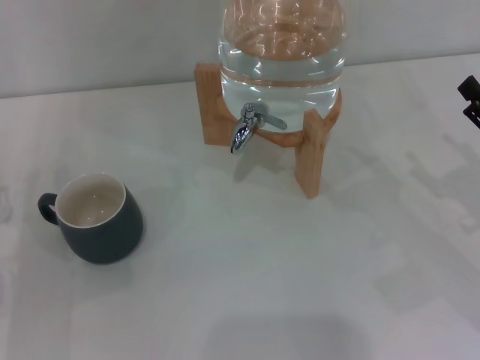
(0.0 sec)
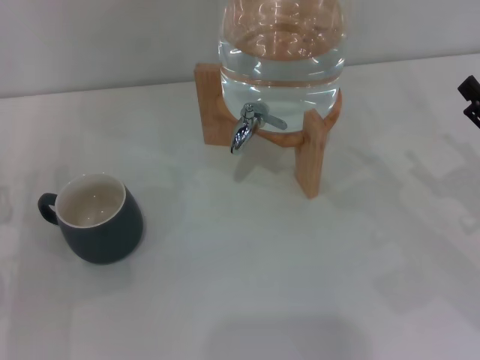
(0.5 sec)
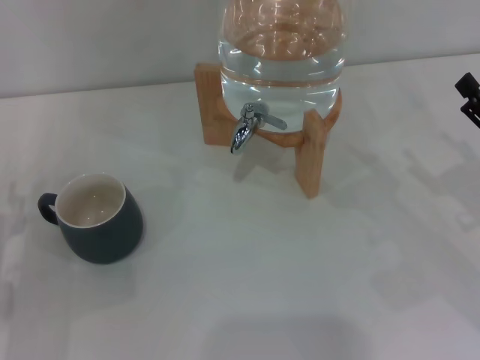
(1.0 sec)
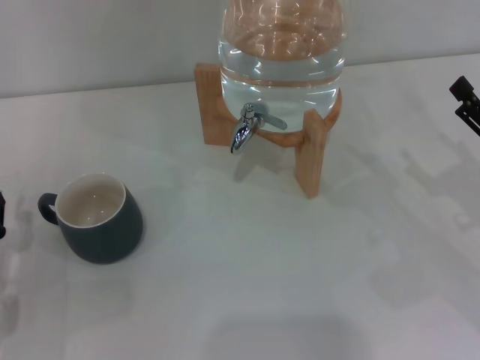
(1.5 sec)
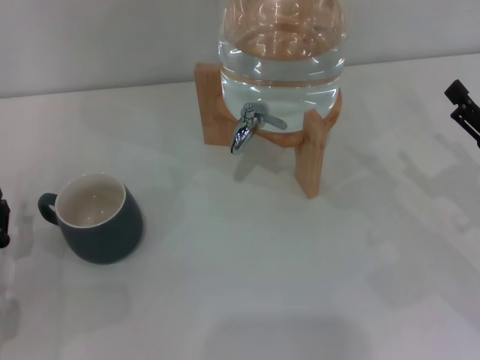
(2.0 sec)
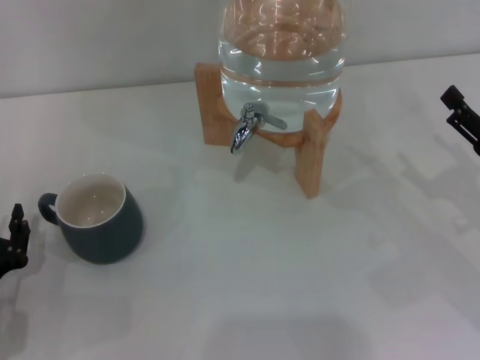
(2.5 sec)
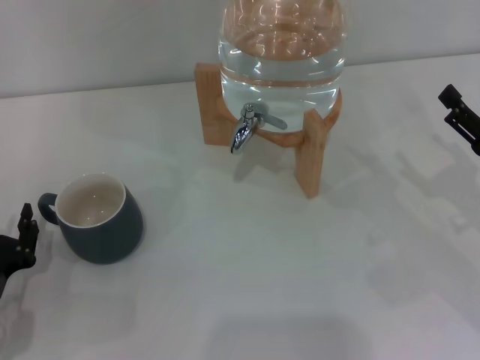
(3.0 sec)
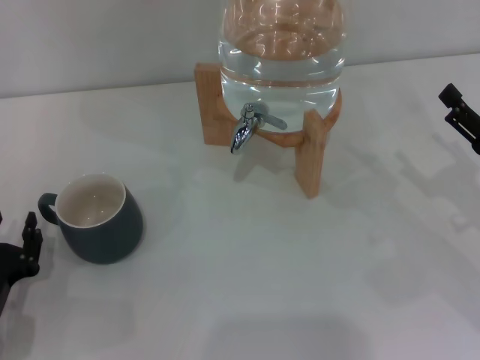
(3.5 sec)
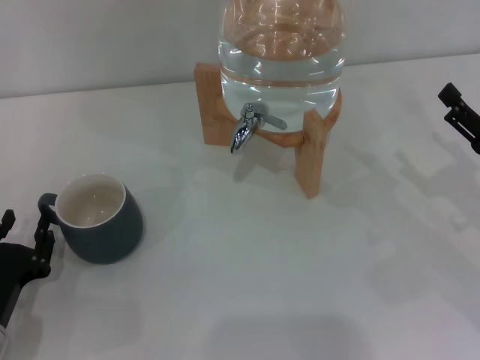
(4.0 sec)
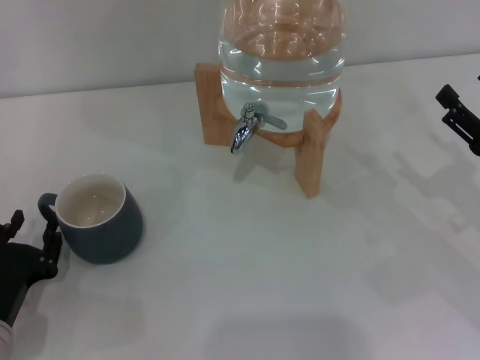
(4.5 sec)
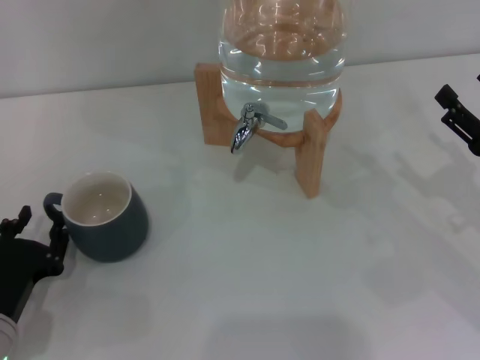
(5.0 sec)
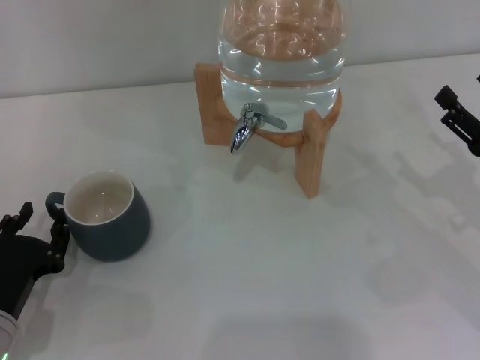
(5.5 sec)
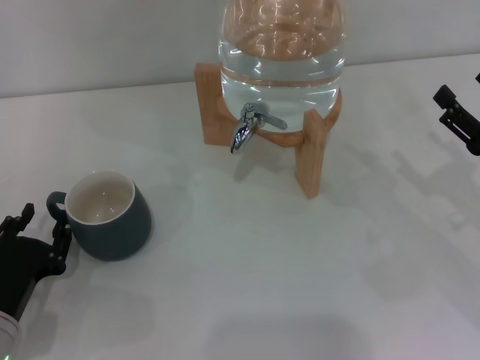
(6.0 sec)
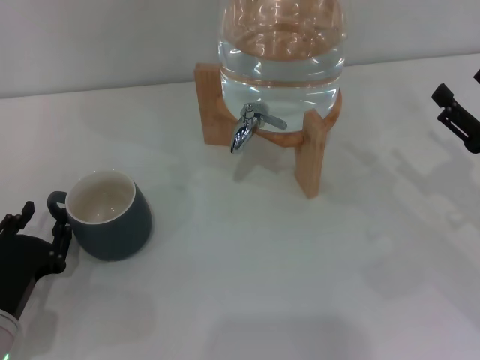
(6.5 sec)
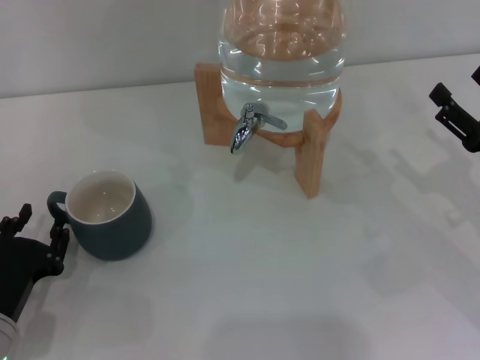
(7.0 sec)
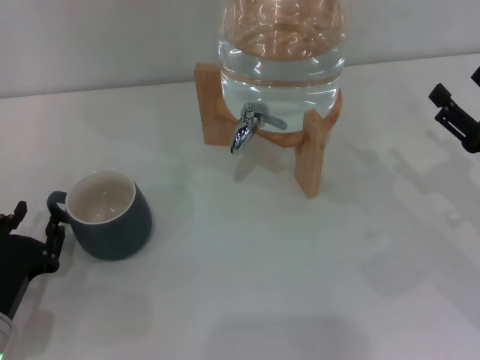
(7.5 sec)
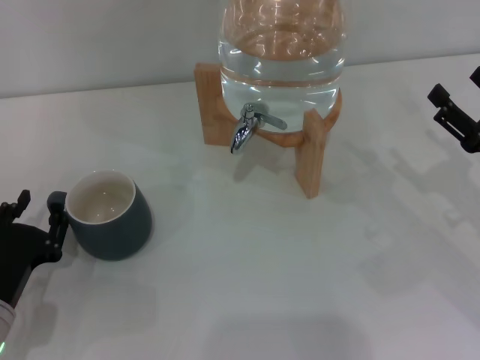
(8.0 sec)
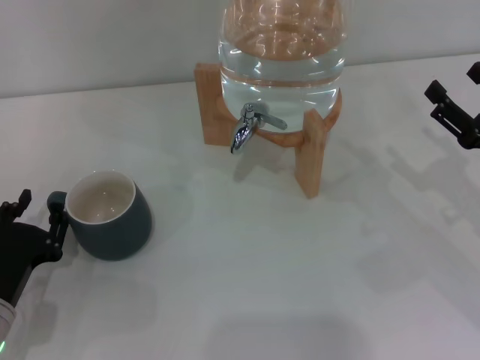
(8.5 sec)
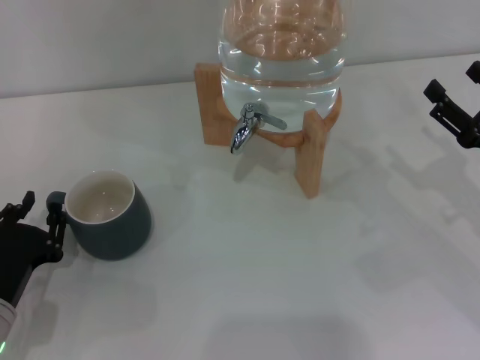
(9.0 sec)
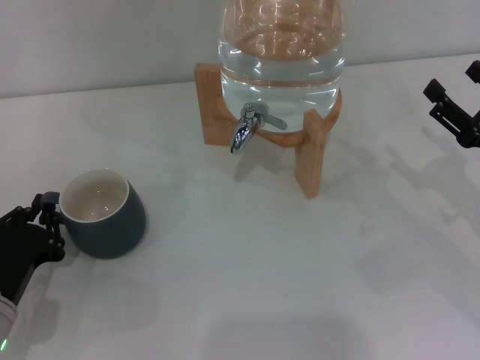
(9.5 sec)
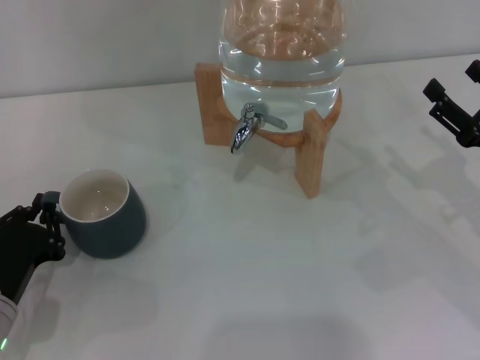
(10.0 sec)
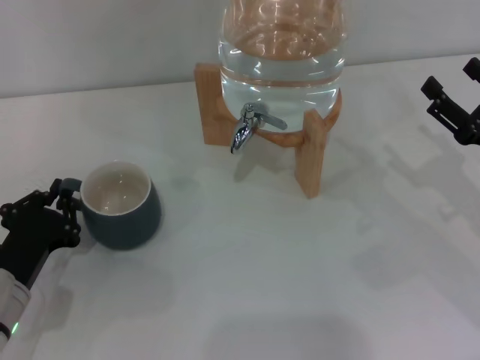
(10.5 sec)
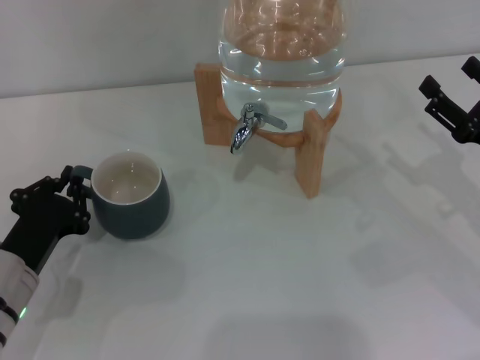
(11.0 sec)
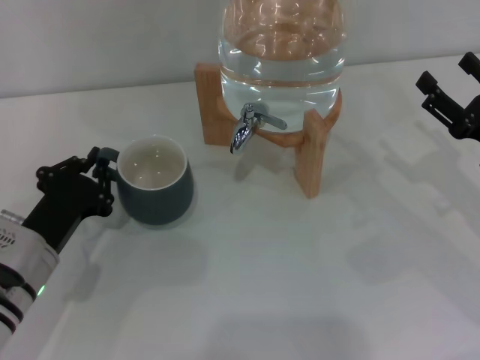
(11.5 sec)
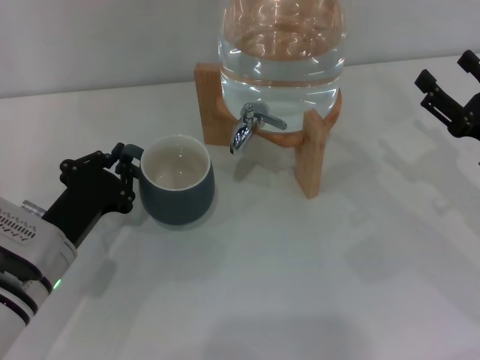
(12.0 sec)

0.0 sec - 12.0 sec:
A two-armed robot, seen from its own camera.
Task of the whole recording: the left gripper pick up the black cup and place it horizontally under the faucet, the right gripper turn on the faucet to fill the cup, and then turn off the faucet.
0.0 sec - 2.0 sec: There are only small adjustments of the grippers.
2.0 sec - 6.0 sec: The grippers make only small movements.
6.0 sec - 8.0 sec: Neither gripper changes place.
8.0 sec - 10.0 sec: The left gripper closes its fingers.
10.0 sec - 12.0 sec: The left gripper travels to the right by some 5 cm.

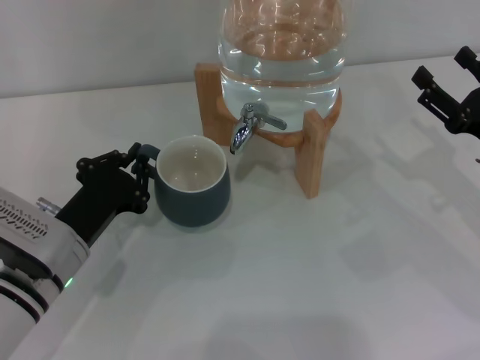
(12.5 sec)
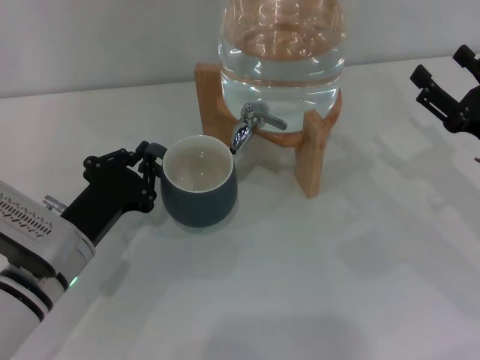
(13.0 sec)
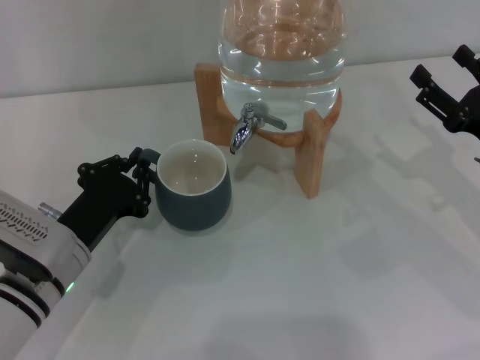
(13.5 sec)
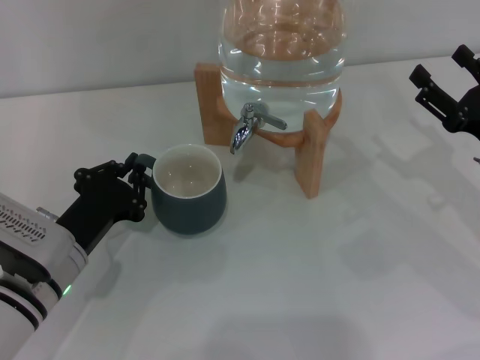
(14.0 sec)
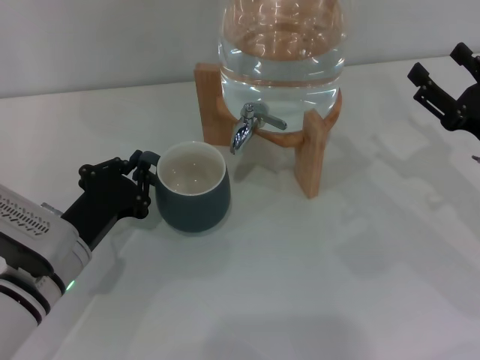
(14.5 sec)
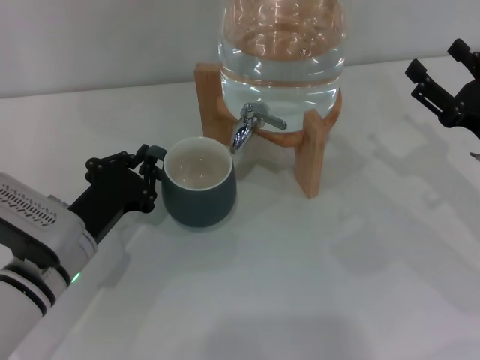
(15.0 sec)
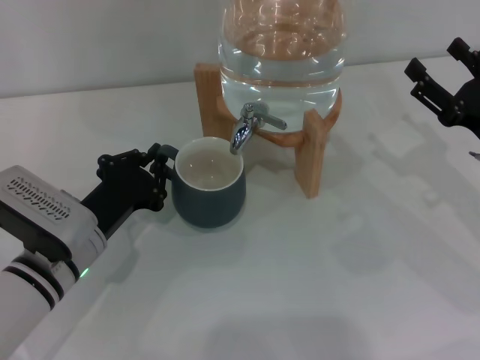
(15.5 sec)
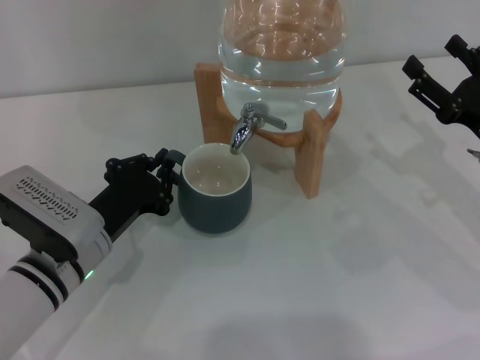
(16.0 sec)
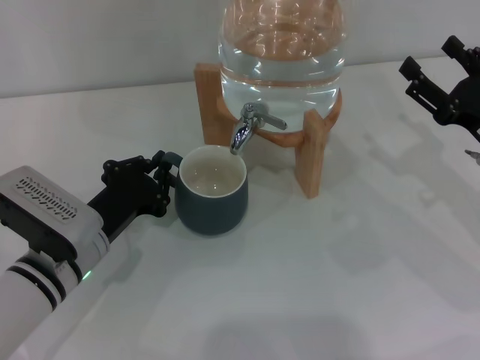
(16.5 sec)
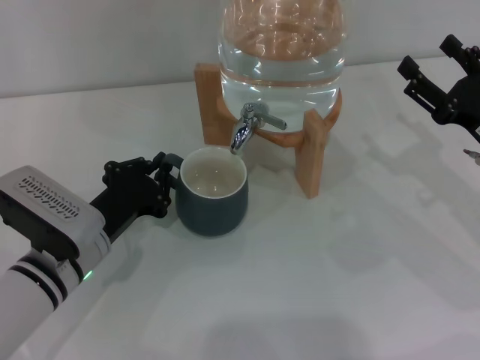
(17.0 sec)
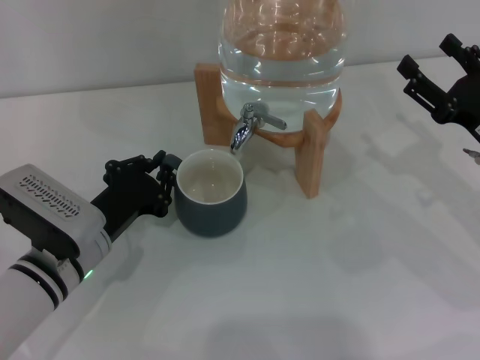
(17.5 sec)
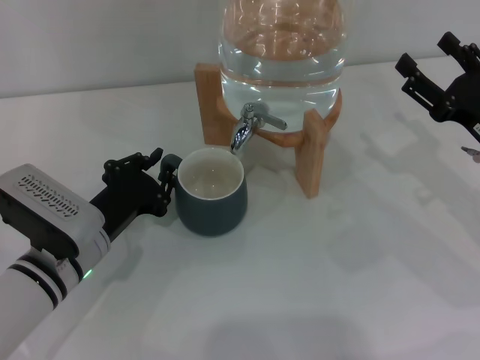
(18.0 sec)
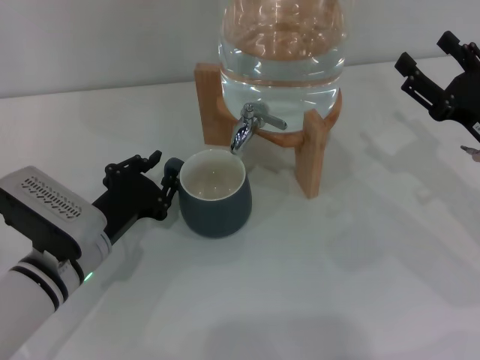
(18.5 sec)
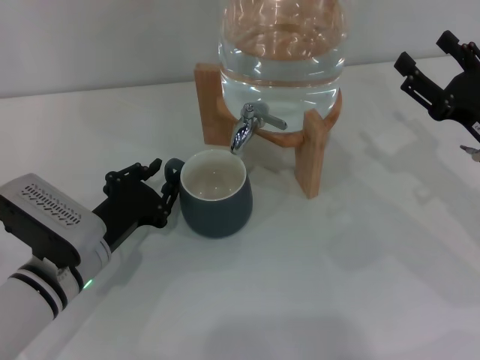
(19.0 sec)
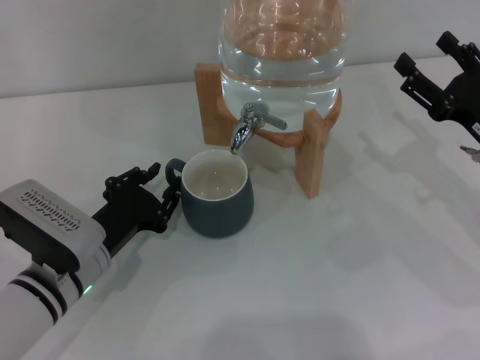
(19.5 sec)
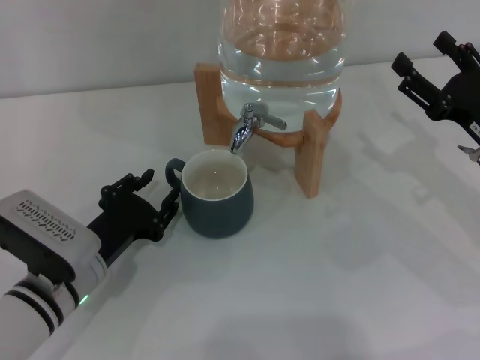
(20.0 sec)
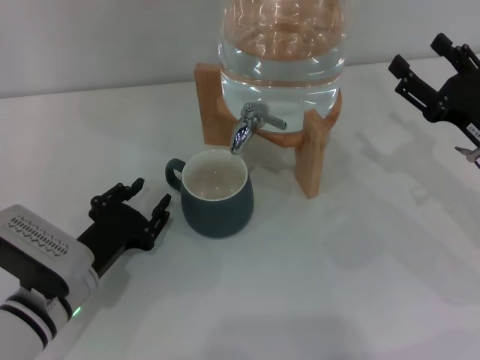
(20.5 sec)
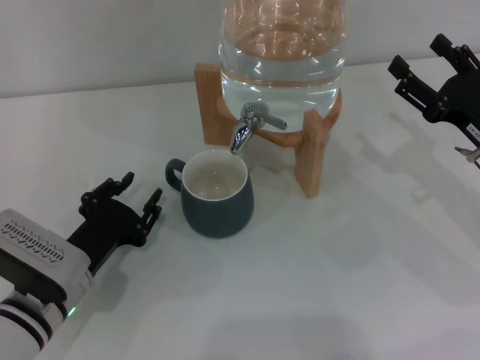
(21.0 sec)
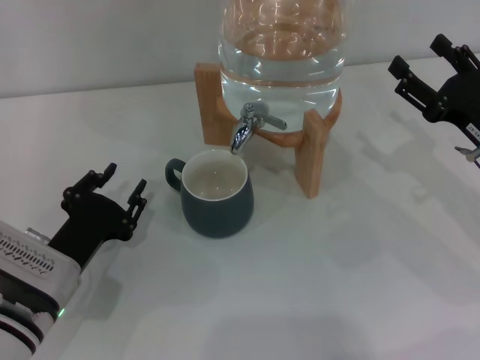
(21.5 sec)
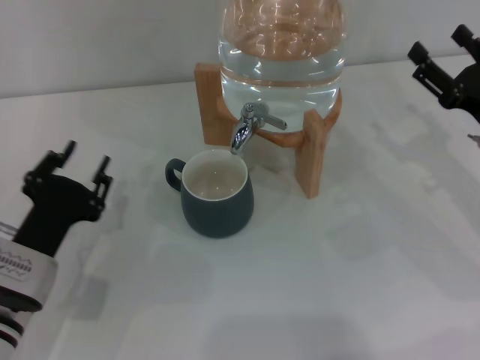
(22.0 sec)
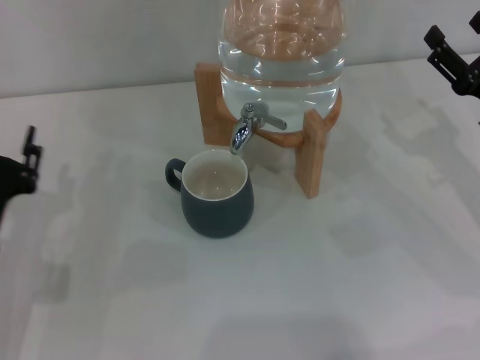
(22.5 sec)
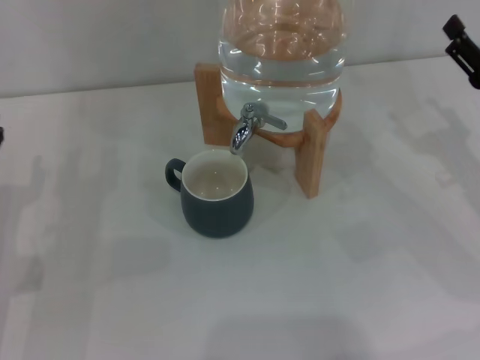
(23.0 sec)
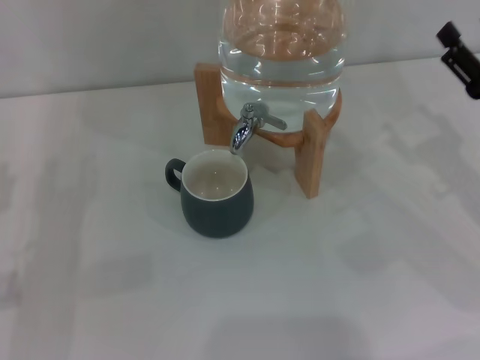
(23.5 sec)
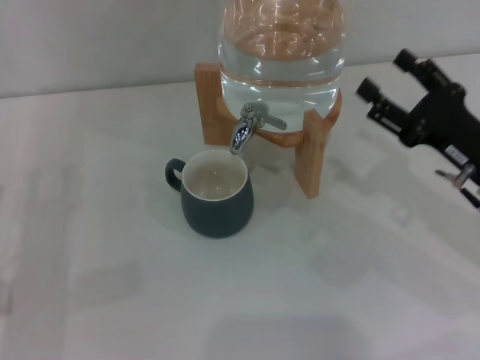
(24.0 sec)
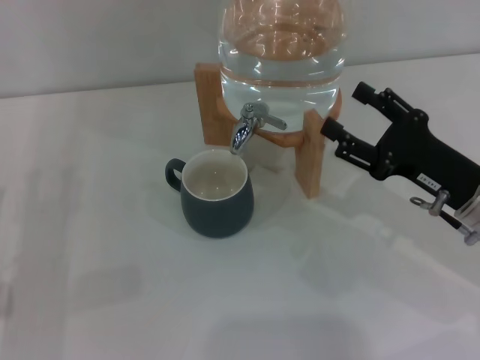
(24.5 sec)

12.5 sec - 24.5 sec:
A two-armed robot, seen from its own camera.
Task of the whole recording: the left gripper pick up the black cup and place it horizontally under the faucet, the right gripper turn on the faucet to fill the cup, and then turn off the faucet.
Step, 12.5 sec - 21.0 sec: Move the cup beneath the water dispenser nozzle with the left gripper.
12.5 sec - 14.5 sec: Both grippers stay about where they are.
14.5 sec - 16.5 sec: There are only small adjustments of the grippers.
16.5 sec - 18.5 sec: Both grippers stay about where they are.
18.5 sec - 20.5 sec: There are only small adjustments of the grippers.
20.5 sec - 22.5 sec: The left gripper moves to the left, approximately 5 cm.
22.5 sec - 24.5 sec: The two grippers go about 5 cm to the left.

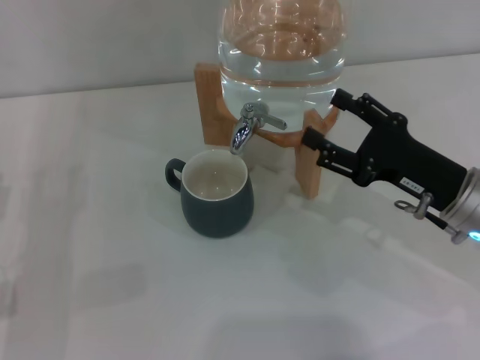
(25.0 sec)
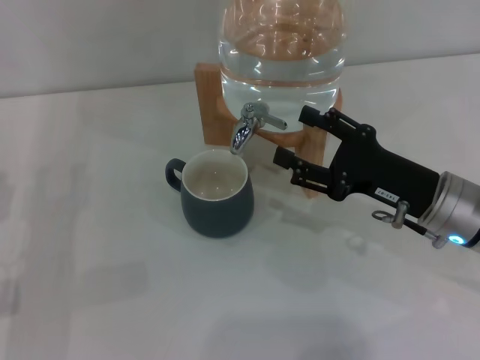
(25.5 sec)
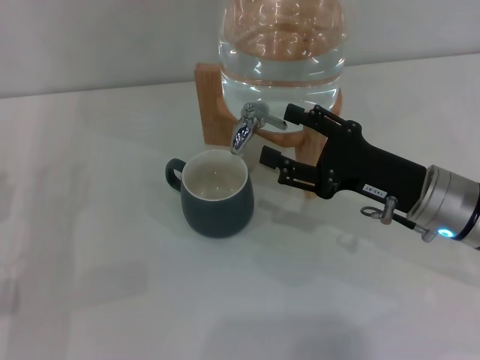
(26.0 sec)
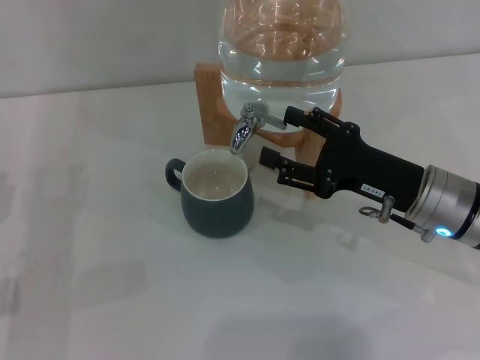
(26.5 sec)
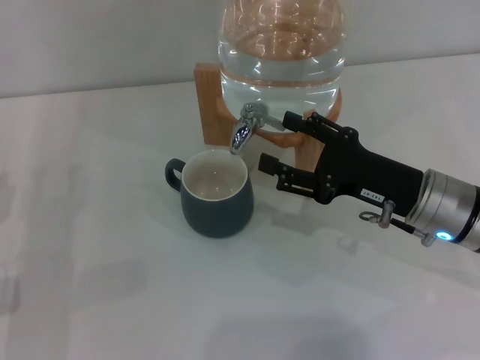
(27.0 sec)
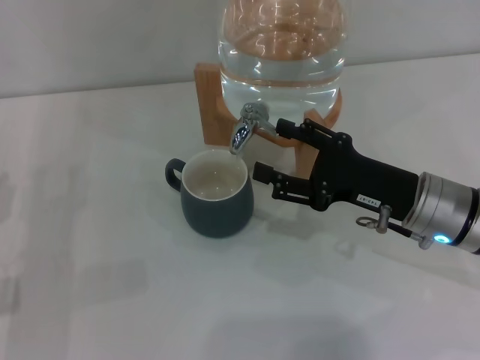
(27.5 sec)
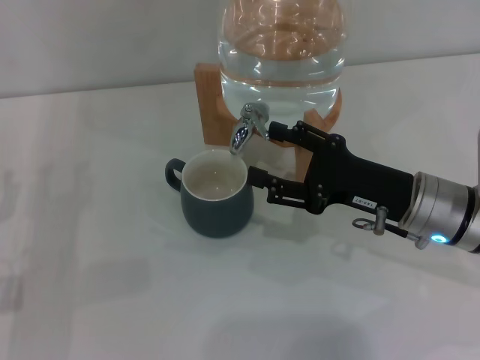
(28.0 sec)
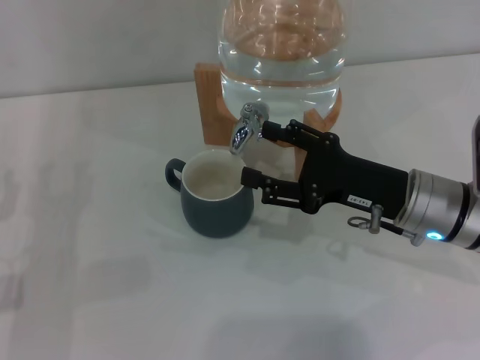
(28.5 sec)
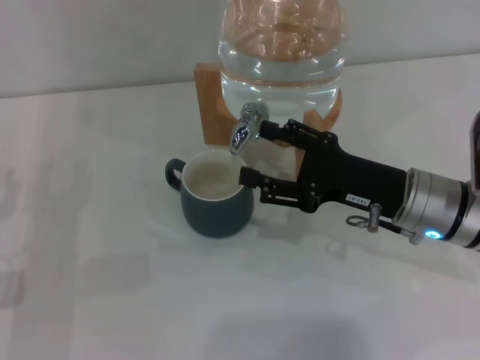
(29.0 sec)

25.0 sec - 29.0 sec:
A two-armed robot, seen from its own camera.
Task of the whole recording: the left gripper pick up the black cup and place it horizontally under the faucet, the right gripper turn on the faucet to fill the cup, and then turn off the faucet.
25.0 sec - 29.0 sec: The grippers stay close to where they were, moving slightly.
